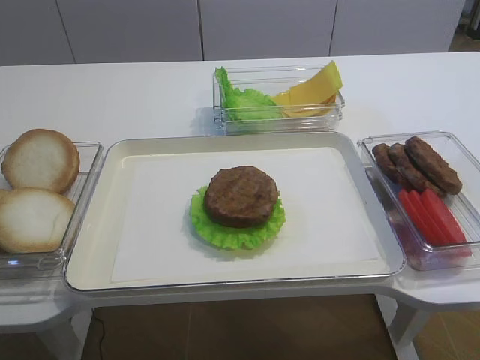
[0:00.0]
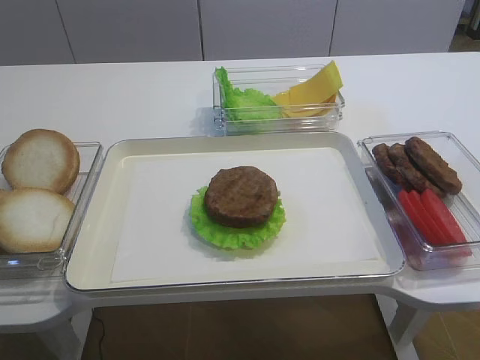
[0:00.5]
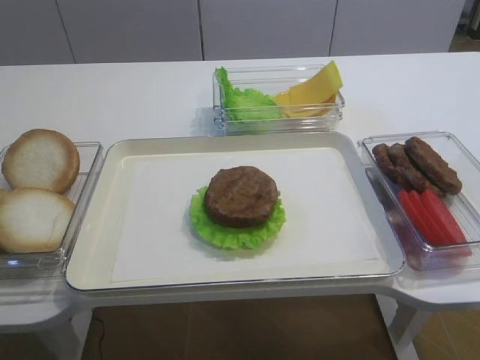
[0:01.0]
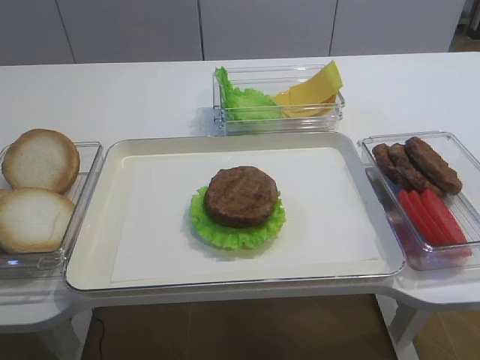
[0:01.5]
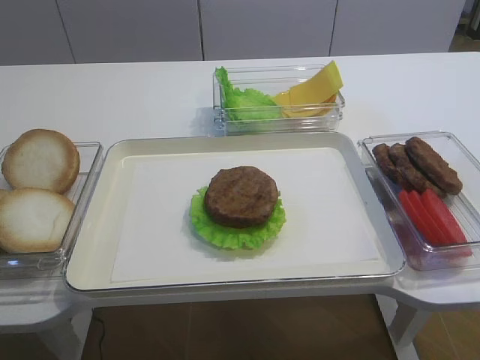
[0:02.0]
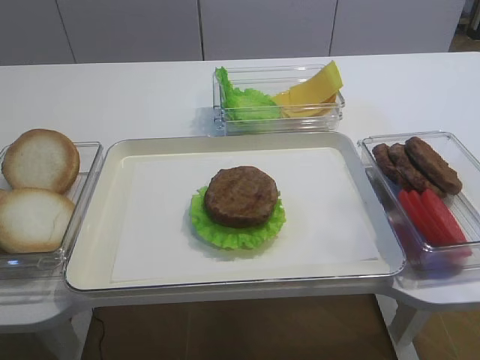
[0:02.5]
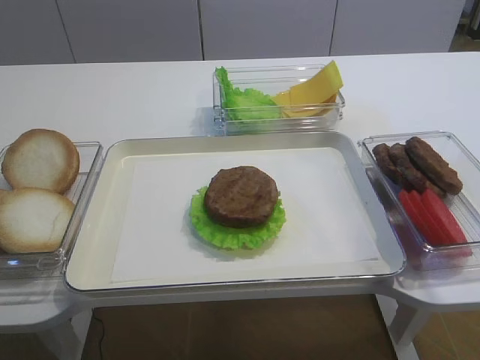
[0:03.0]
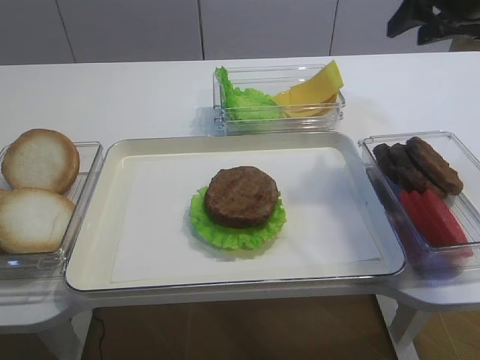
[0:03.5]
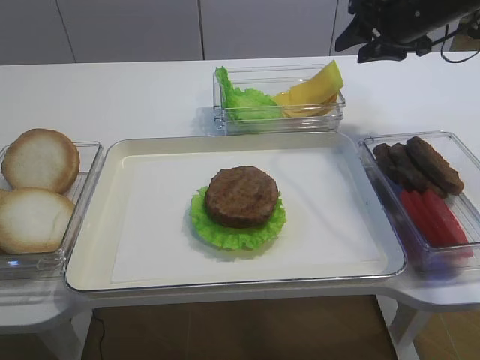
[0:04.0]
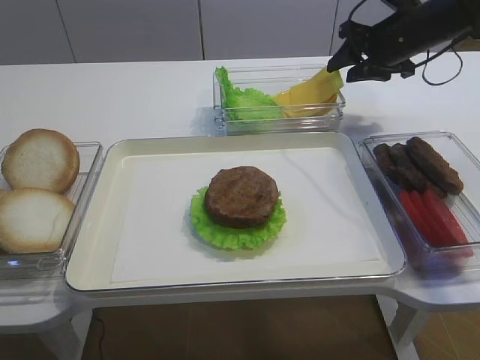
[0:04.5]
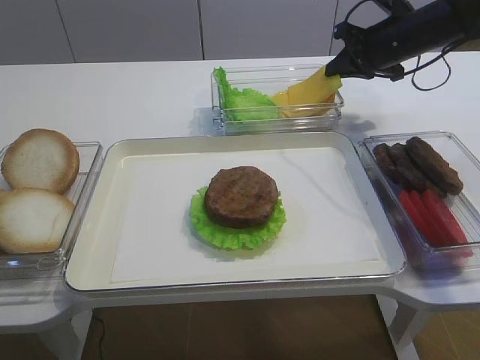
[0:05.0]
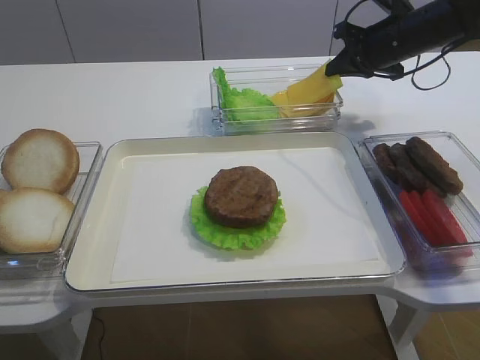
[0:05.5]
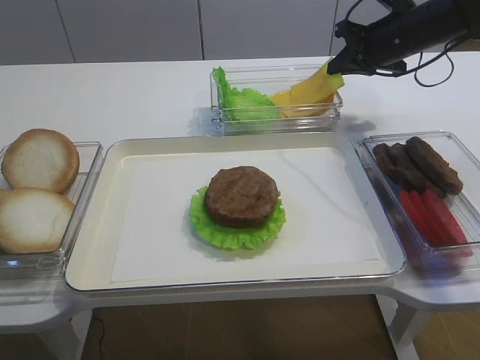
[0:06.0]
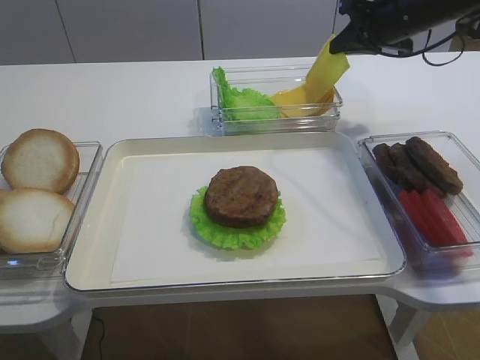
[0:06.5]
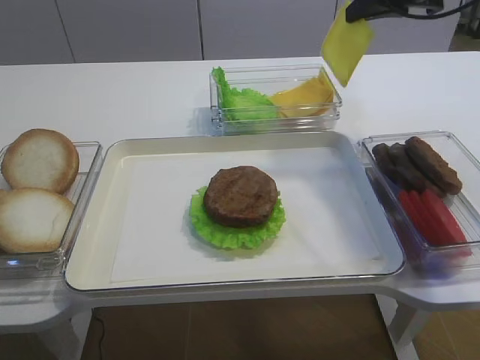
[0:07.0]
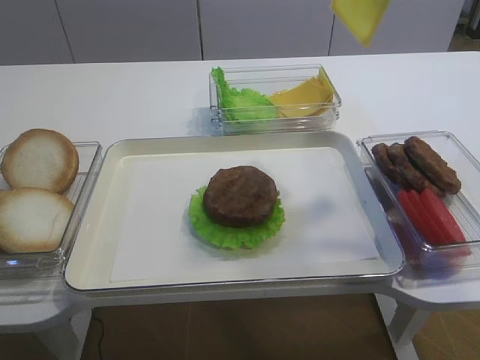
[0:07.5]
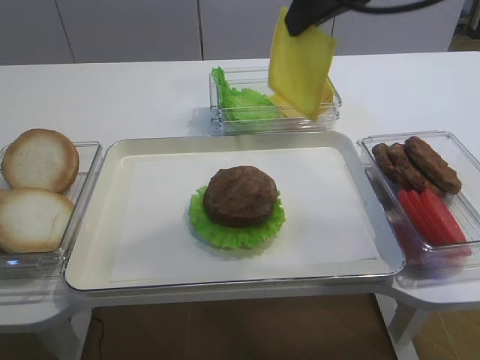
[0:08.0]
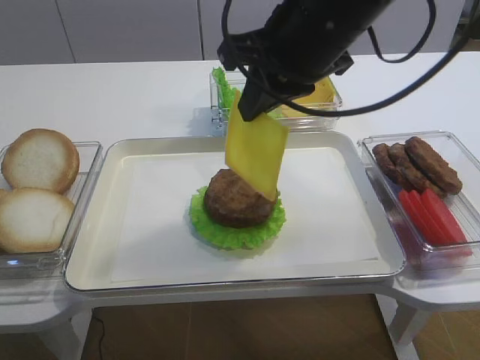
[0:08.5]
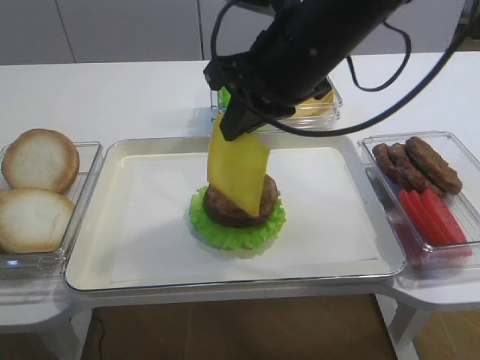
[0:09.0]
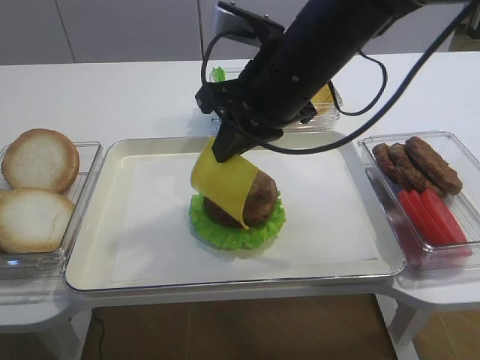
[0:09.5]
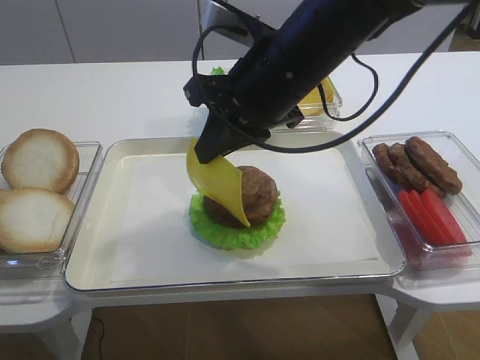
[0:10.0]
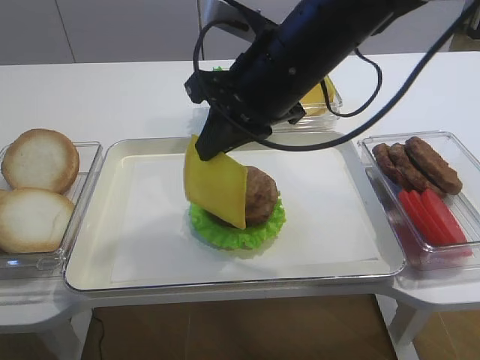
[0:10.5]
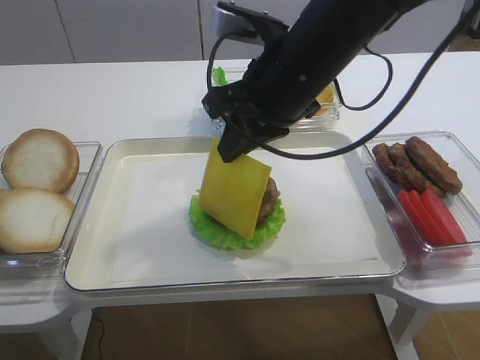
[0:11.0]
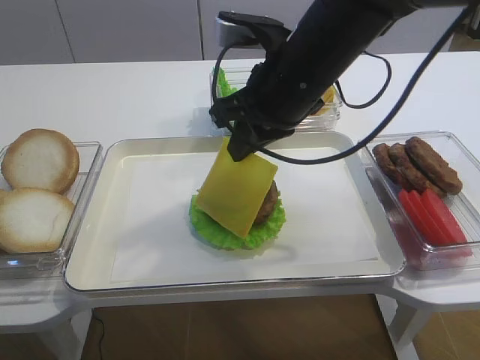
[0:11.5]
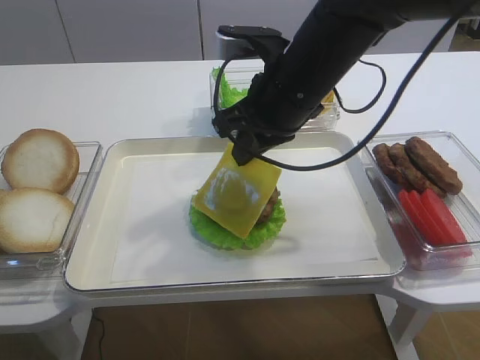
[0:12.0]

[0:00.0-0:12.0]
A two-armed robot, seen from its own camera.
Step, 0:00.0 to 0:06.0: Pick up the cheese slice with the right gripper.
0:02.0 to 0:04.0: The right gripper is displaced forward by some 50 cm.
0:04.0 to 0:06.0: The right gripper changes place by approximately 5 cm, and closes up.
0:06.0 to 0:08.0: The right gripper travels backward, upward and to the left by some 25 cm.
0:08.0 to 0:10.0: The right gripper is displaced downward and to the left by approximately 15 cm.
0:10.0 to 0:12.0: The grippers make only small movements.

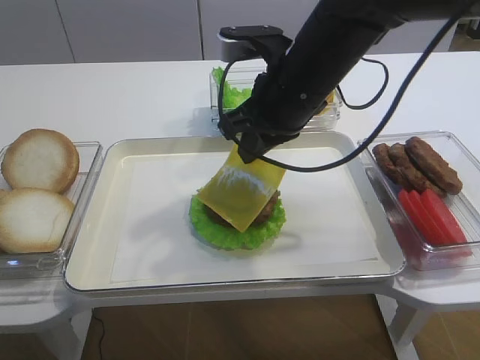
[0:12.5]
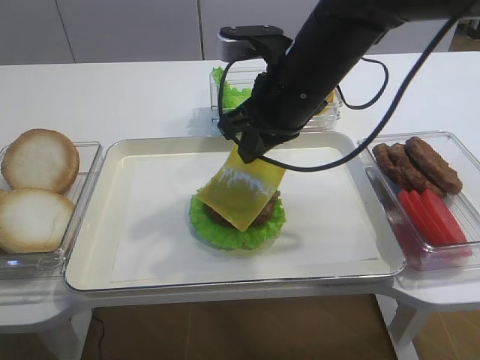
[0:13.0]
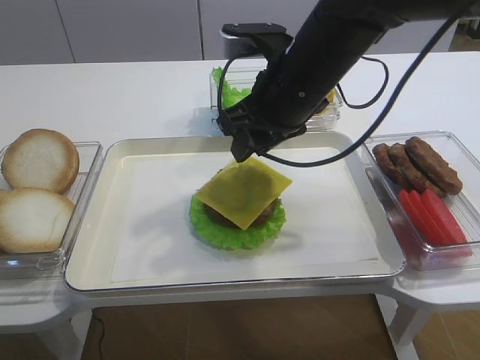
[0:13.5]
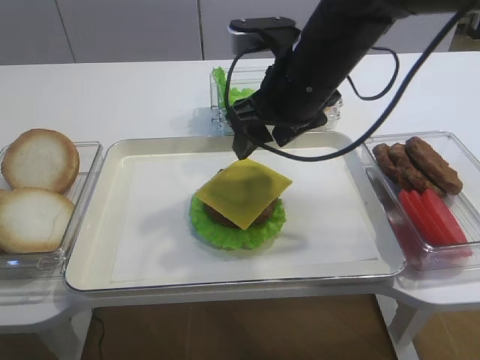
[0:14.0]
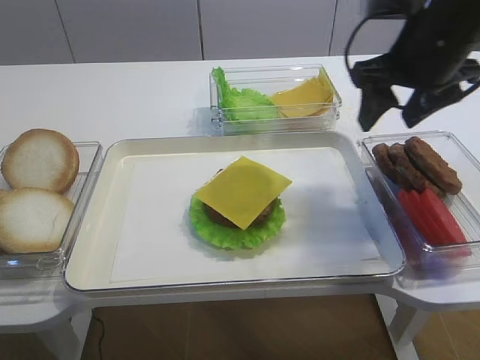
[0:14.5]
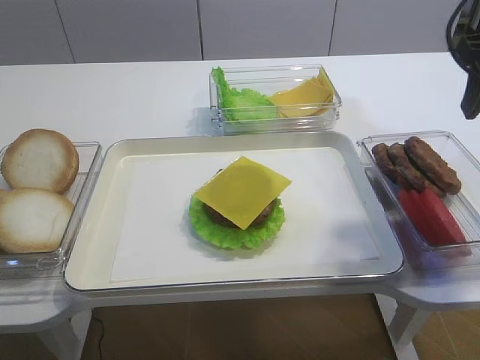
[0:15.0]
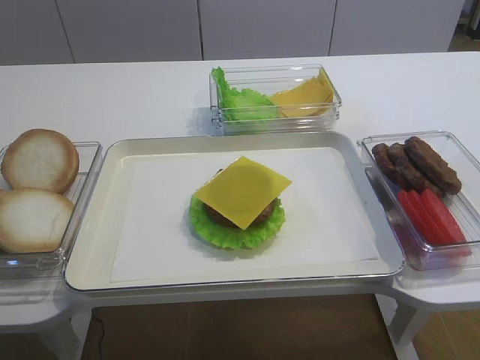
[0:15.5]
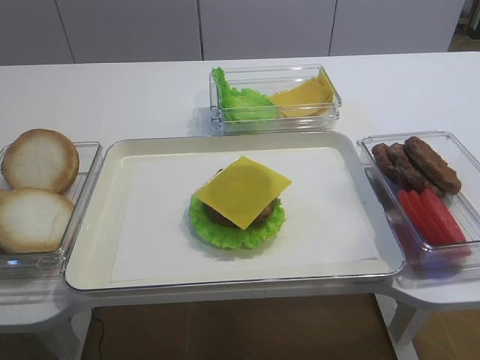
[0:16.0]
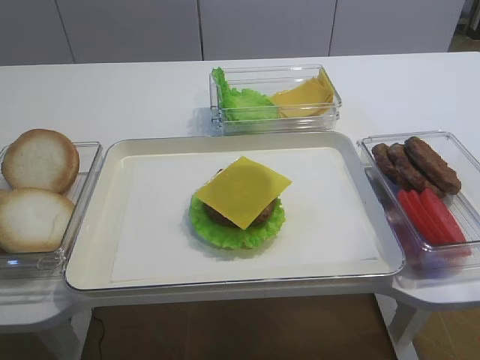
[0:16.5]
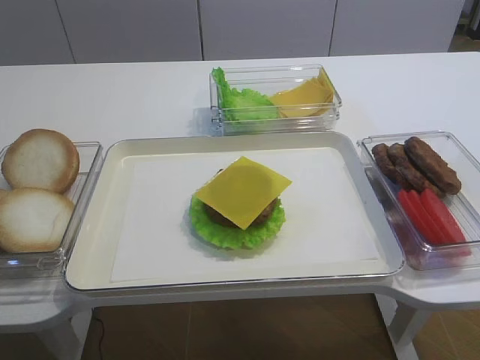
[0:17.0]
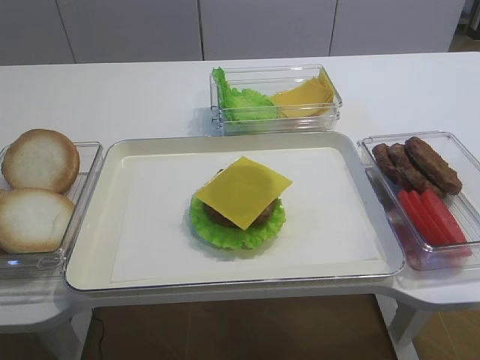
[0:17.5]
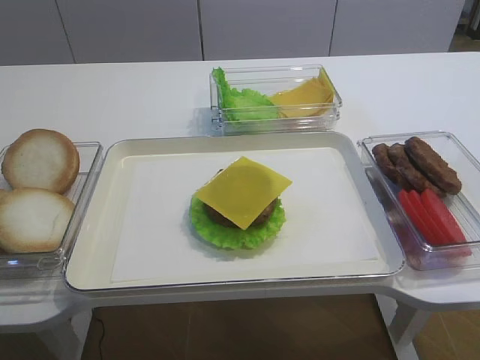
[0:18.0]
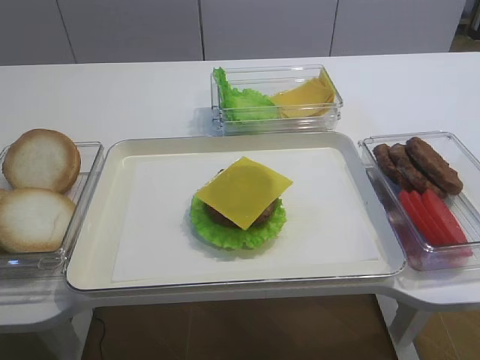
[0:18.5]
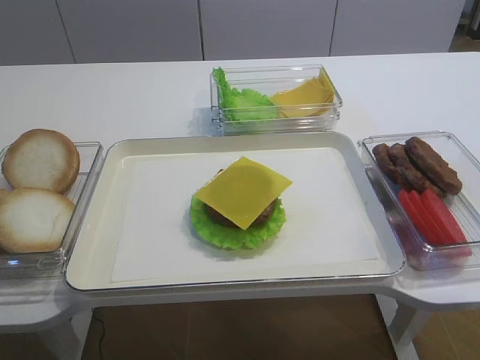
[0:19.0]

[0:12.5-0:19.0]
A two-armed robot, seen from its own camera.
0:12.5 to 0:14.5: The right gripper travels to the right by some 10 cm, and opens.
0:14.5 to 0:17.0: The right gripper shifts some 35 cm backward.

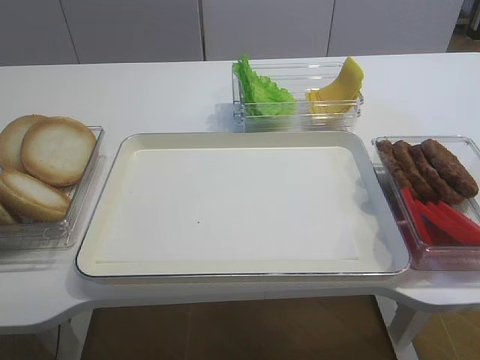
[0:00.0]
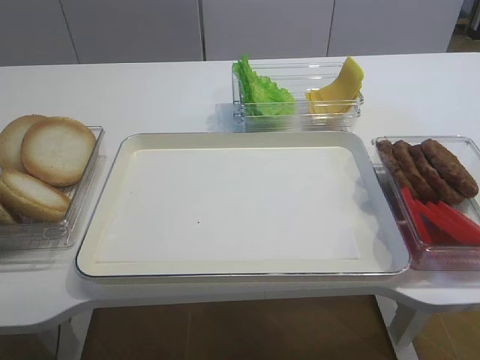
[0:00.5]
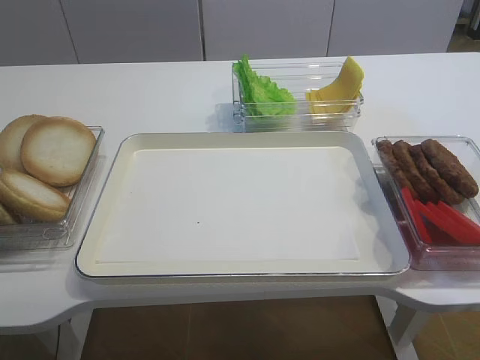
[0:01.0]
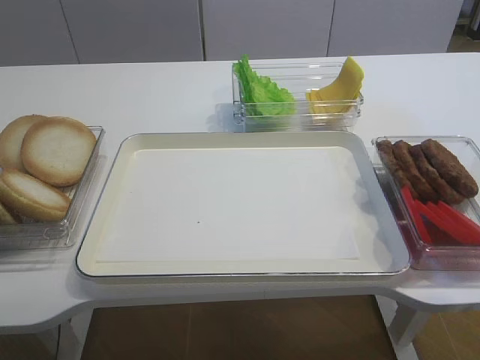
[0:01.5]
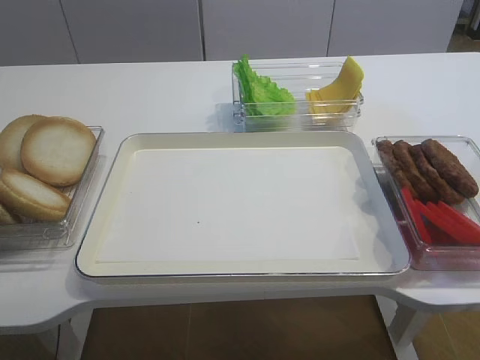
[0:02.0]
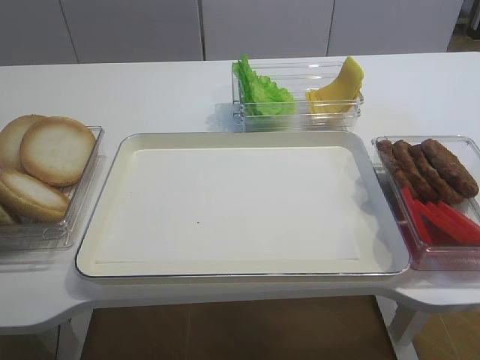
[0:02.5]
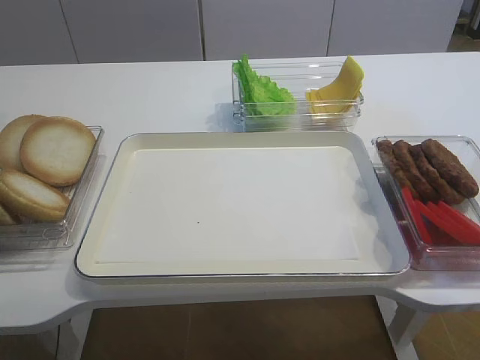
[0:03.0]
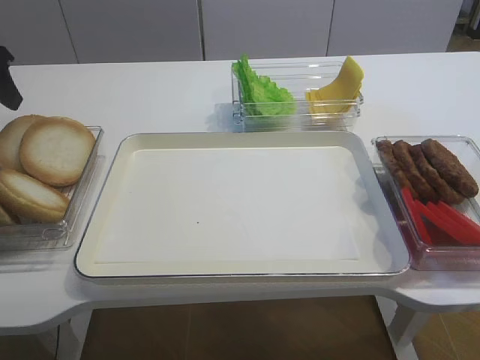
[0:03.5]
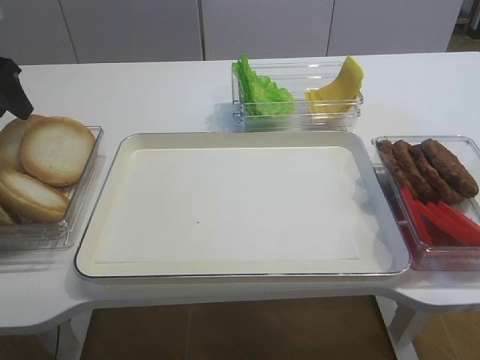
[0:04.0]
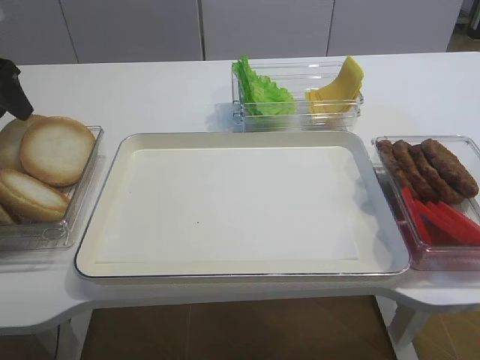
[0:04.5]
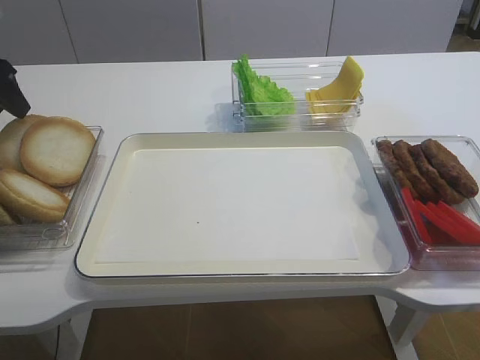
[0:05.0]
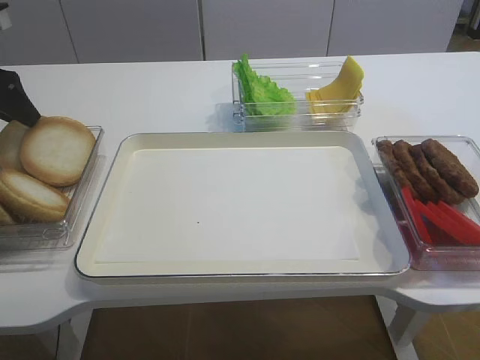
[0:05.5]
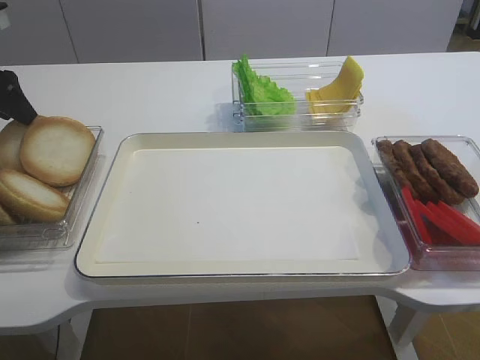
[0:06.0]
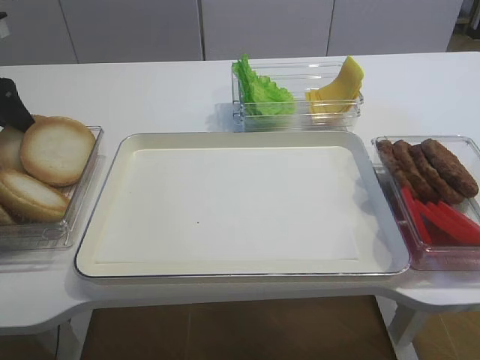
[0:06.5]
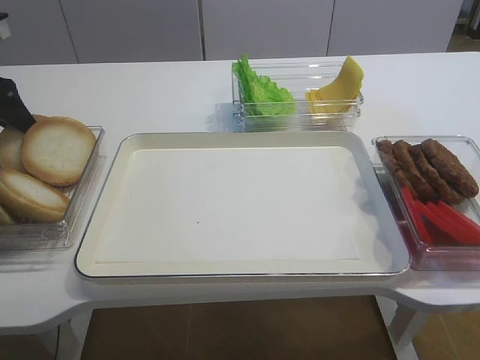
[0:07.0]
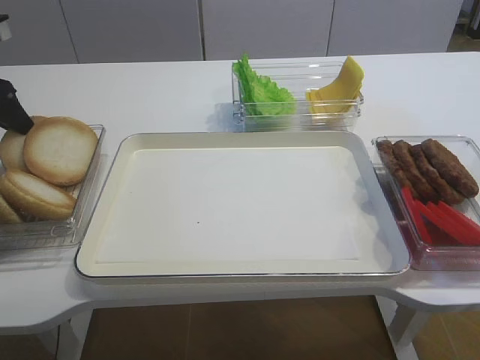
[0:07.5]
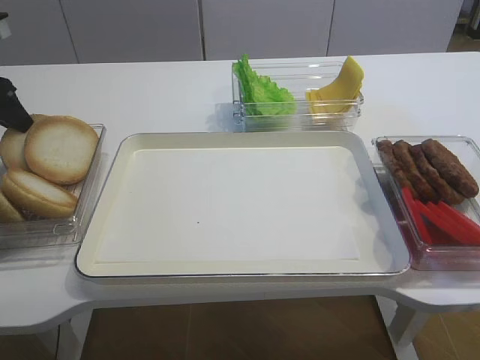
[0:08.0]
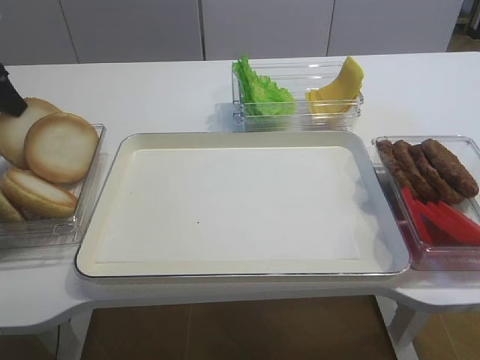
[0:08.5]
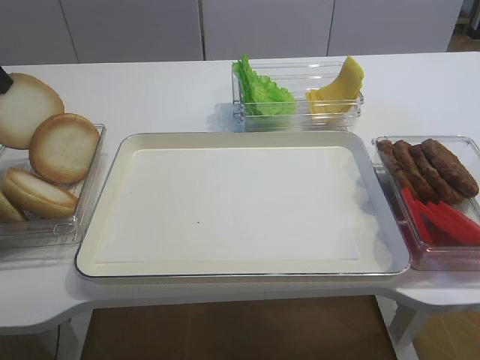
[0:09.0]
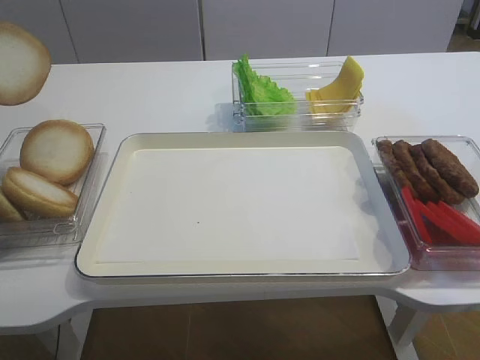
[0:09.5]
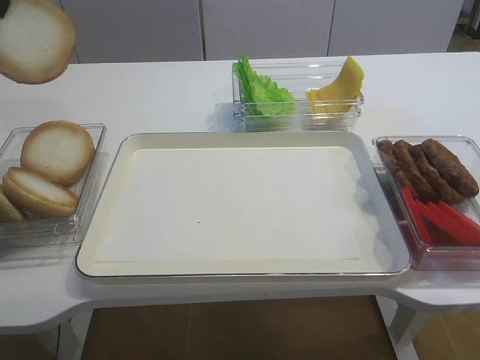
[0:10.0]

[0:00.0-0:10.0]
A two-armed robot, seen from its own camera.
Step, 0:00.0 to 0:09.0: Pick up the bread slice with the left gripper.
0:02.0 to 0:04.0: The left gripper shifts approximately 30 cm forward.
0:06.0 to 0:08.0: The left gripper closes up.
0:08.0 to 0:10.0: The left gripper travels upward and backward by roughly 15 cm.
